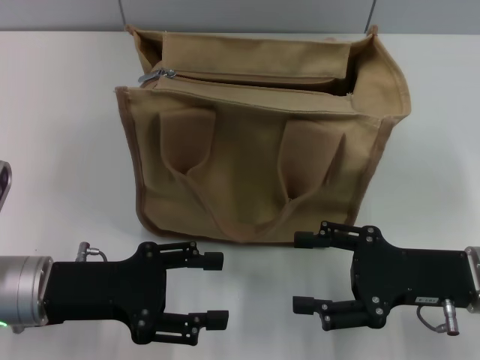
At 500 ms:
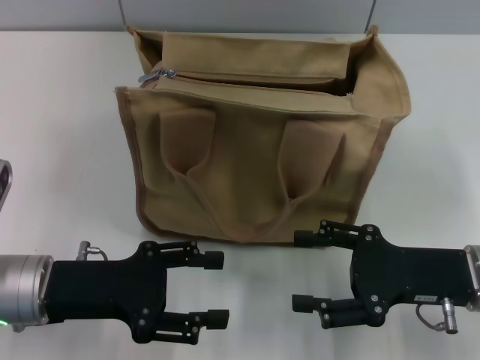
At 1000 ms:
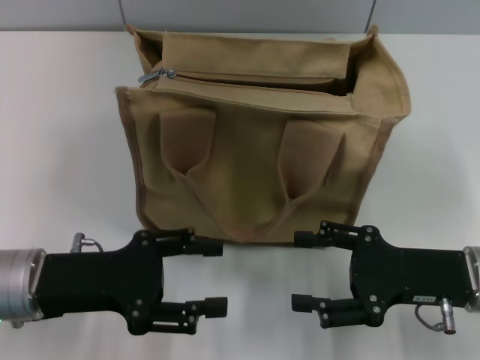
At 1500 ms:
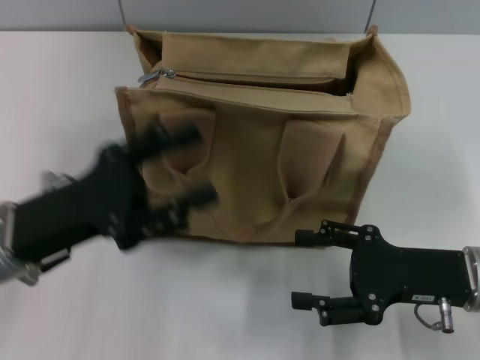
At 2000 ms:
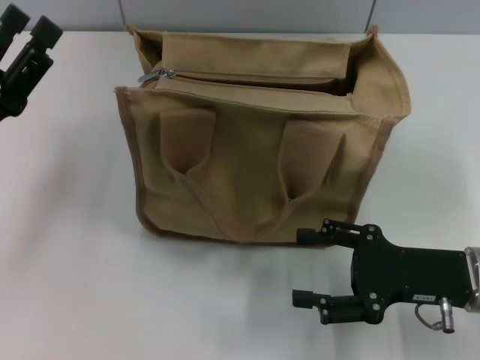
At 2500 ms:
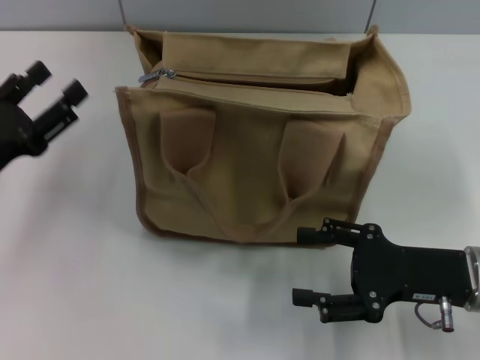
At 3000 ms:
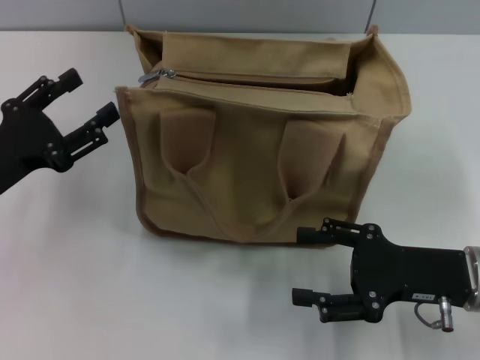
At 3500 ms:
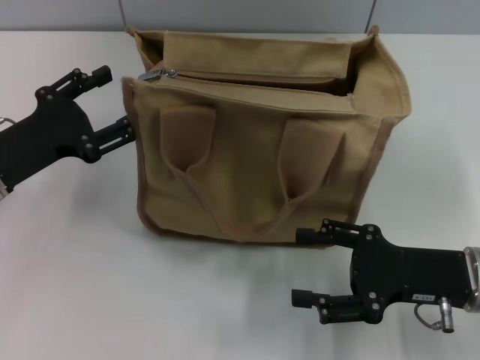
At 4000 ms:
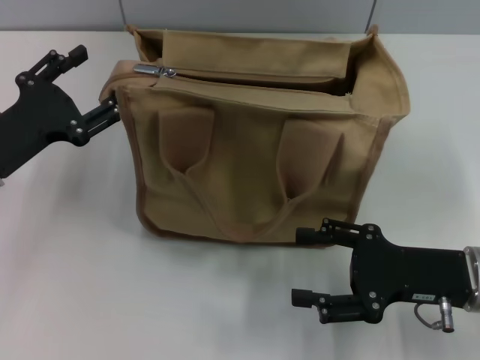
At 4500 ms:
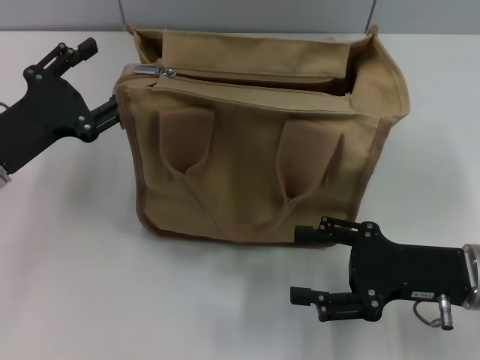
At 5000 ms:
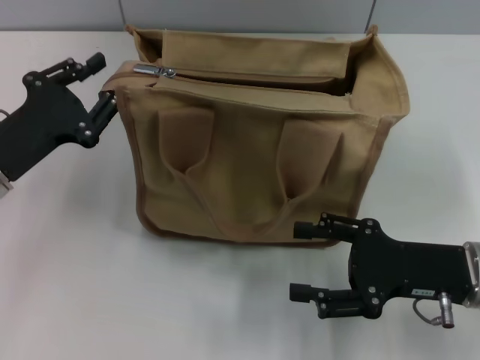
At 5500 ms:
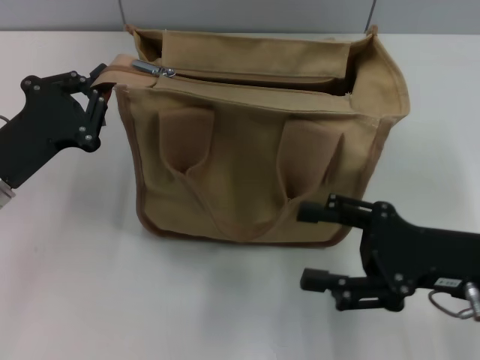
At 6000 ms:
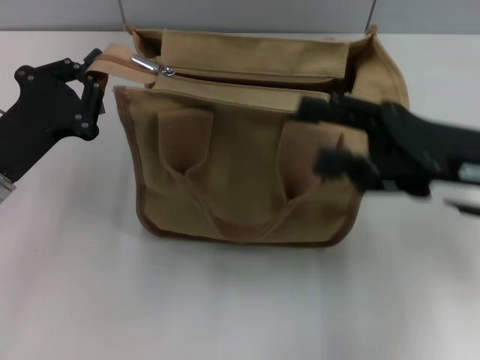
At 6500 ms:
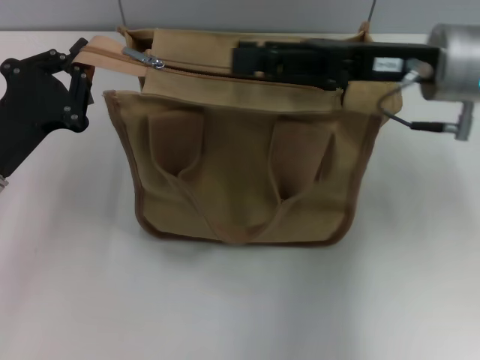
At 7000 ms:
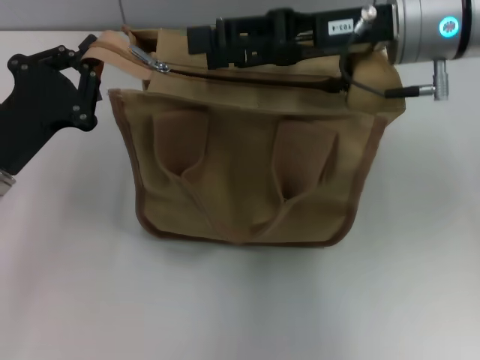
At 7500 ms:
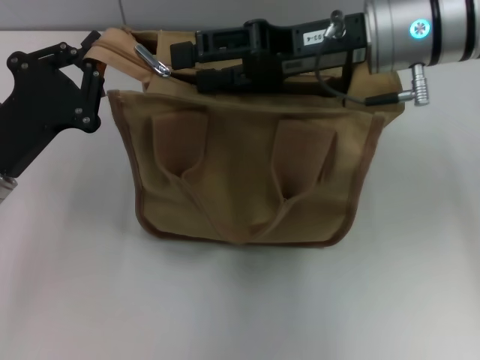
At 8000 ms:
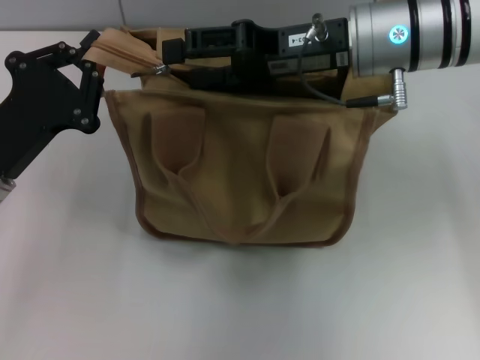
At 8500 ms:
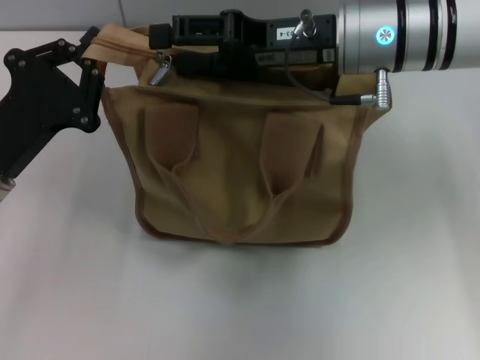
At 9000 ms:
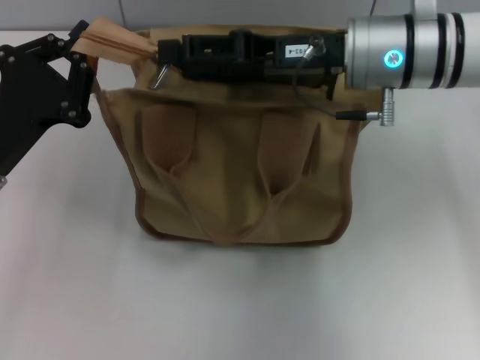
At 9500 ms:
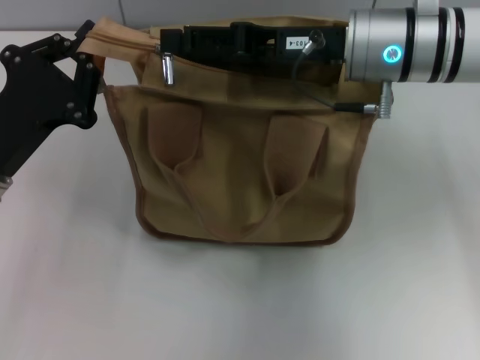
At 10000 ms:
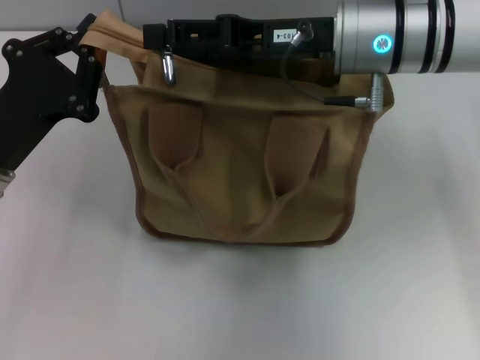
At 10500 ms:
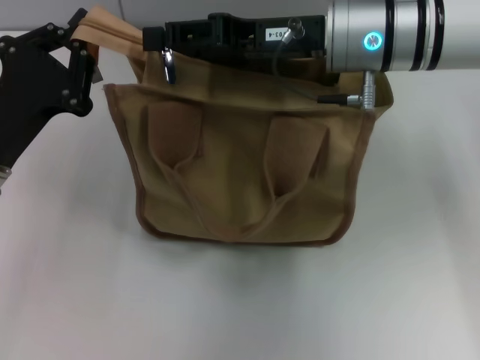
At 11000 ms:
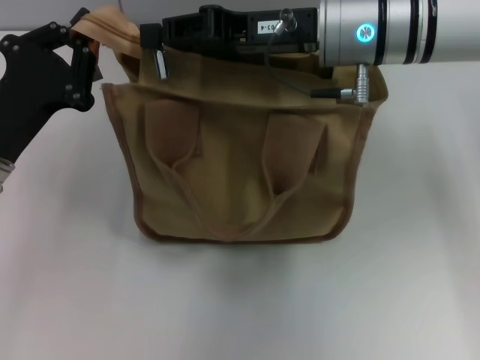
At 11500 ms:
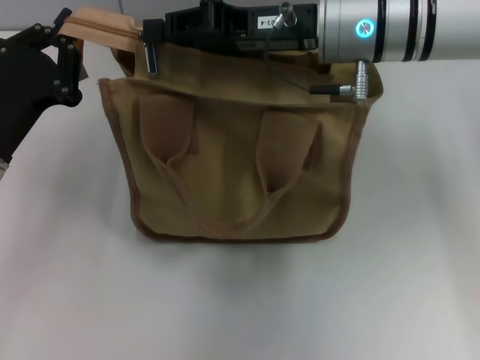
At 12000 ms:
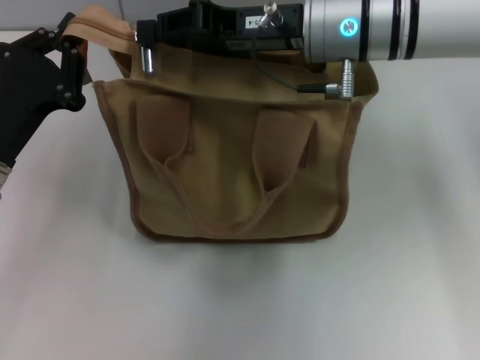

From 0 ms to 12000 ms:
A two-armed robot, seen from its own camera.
From 0 ms to 2000 ms: The left gripper ends up about 5 cm from where it was.
From 4000 ms to 6000 ms: The left gripper closes its fingers. Meanwhile the right gripper heads upward, covering about 10 cm.
From 6000 ms to 8000 ms: The right gripper heads forward and to the left, covering roughly 15 cm.
From 8000 ms to 10000 ms: The grippers make only small movements.
From 10000 ms to 12000 ms: The right gripper closes up.

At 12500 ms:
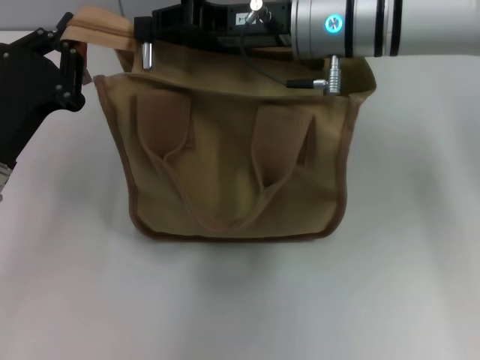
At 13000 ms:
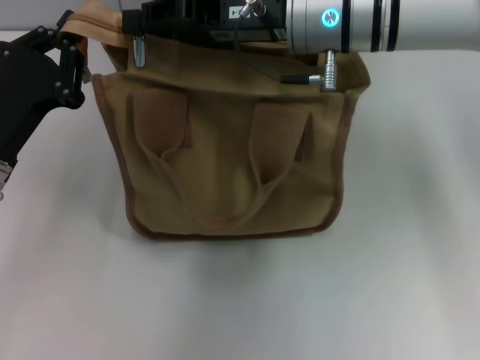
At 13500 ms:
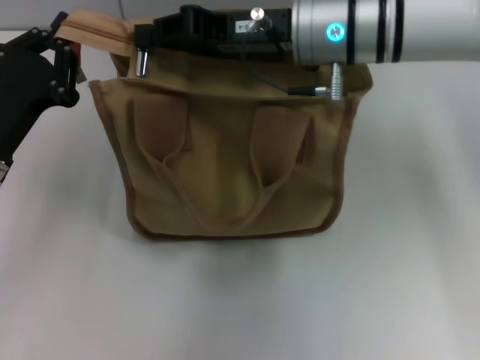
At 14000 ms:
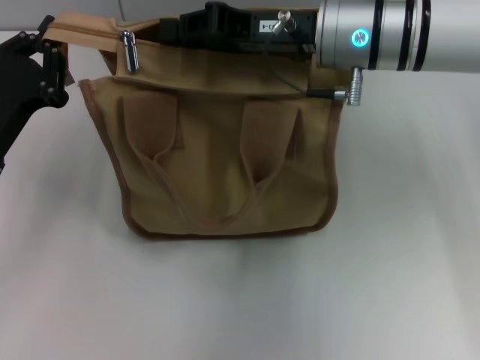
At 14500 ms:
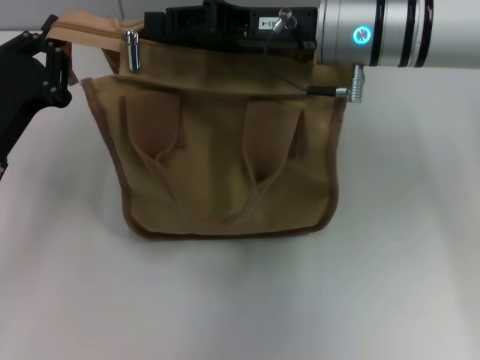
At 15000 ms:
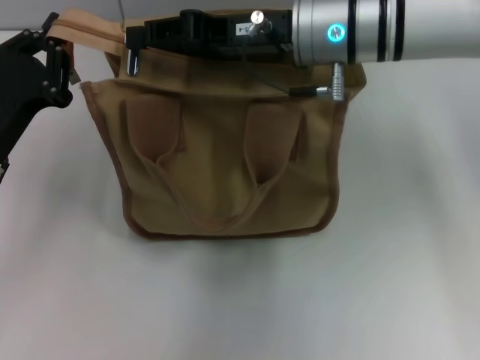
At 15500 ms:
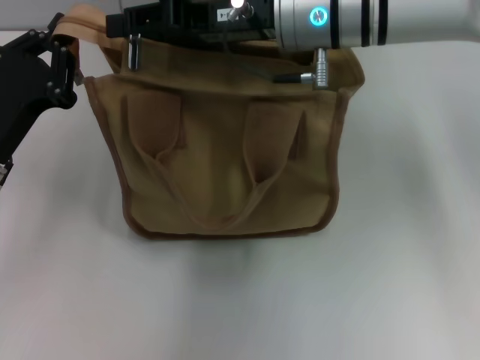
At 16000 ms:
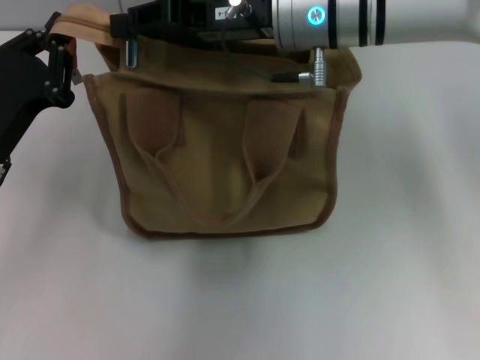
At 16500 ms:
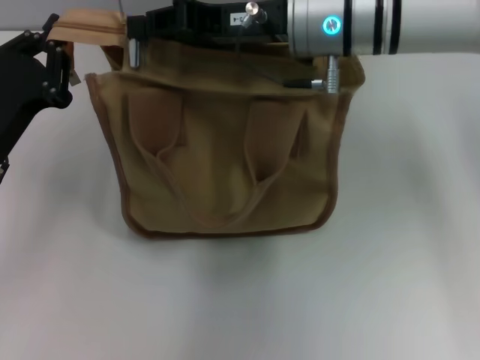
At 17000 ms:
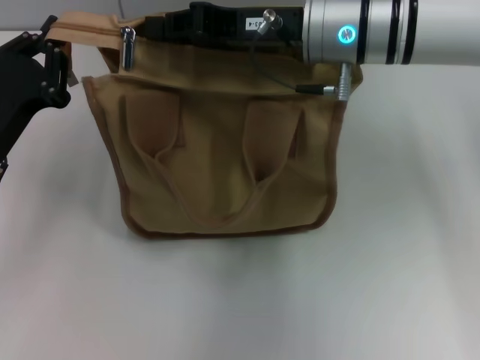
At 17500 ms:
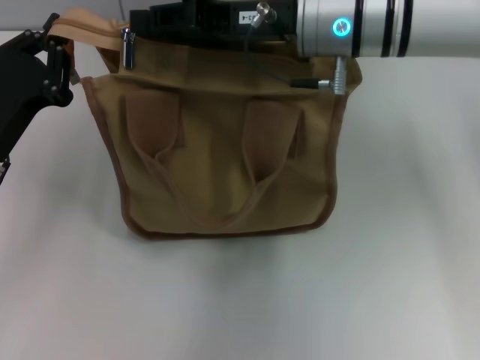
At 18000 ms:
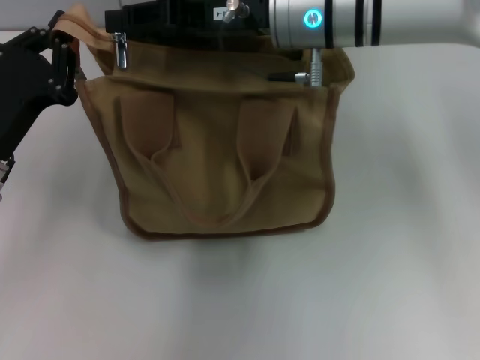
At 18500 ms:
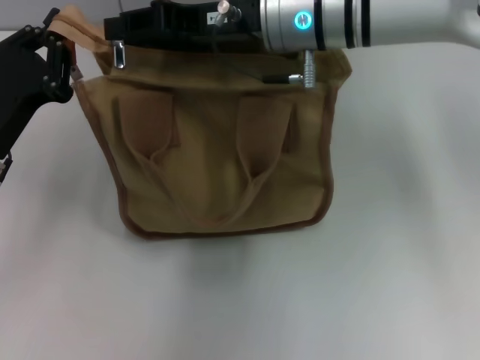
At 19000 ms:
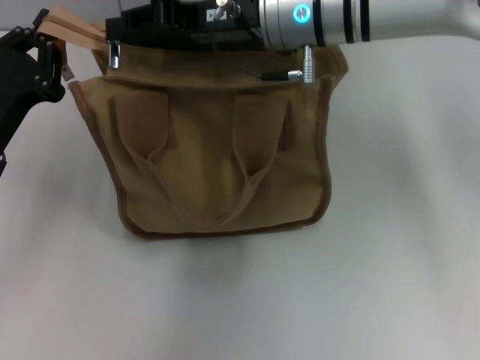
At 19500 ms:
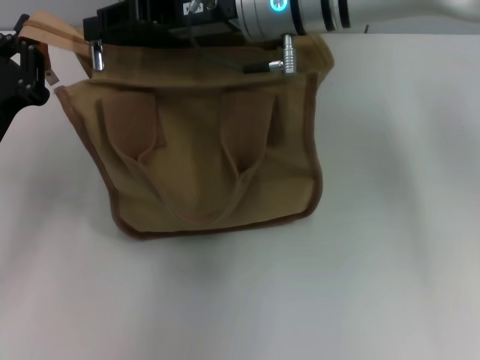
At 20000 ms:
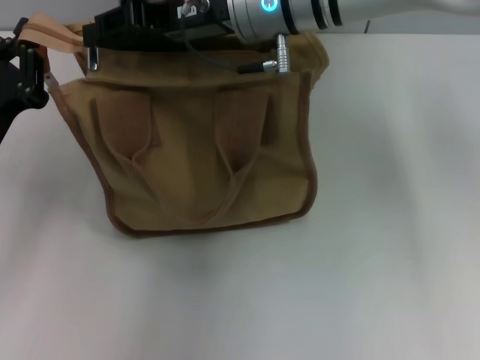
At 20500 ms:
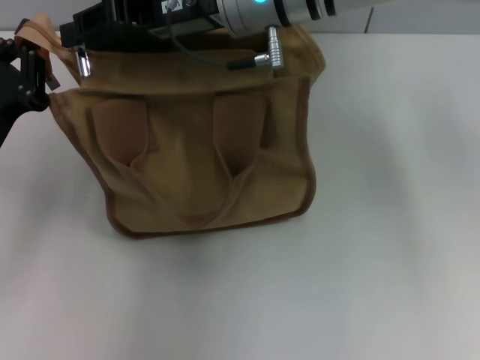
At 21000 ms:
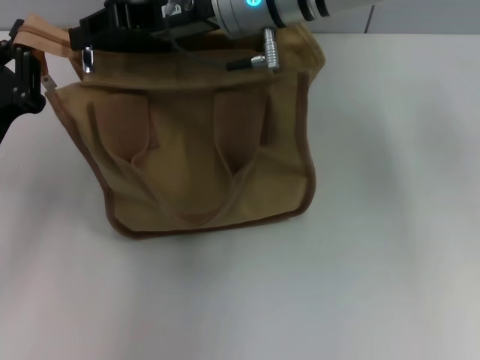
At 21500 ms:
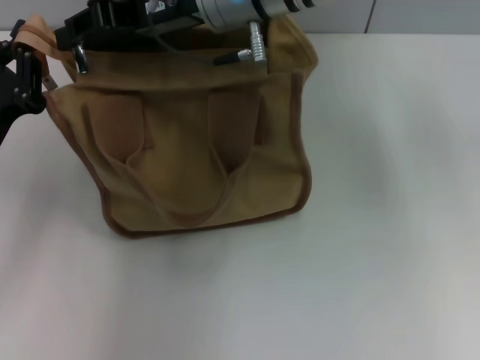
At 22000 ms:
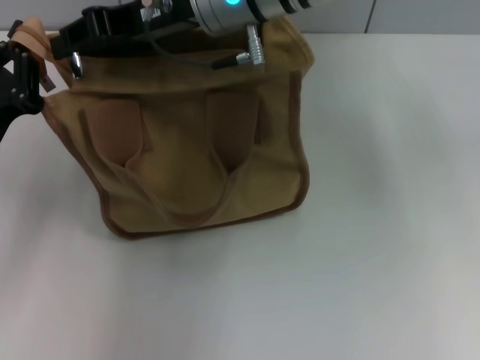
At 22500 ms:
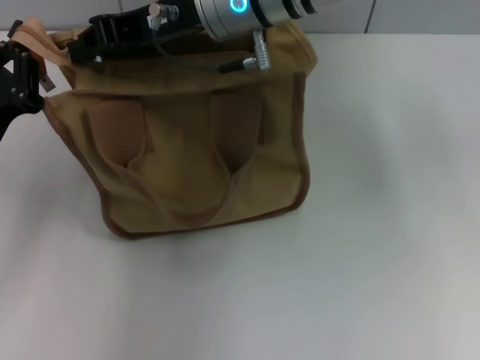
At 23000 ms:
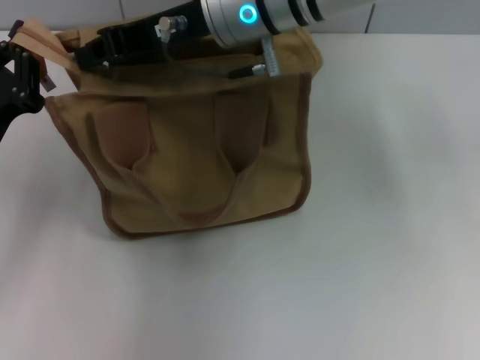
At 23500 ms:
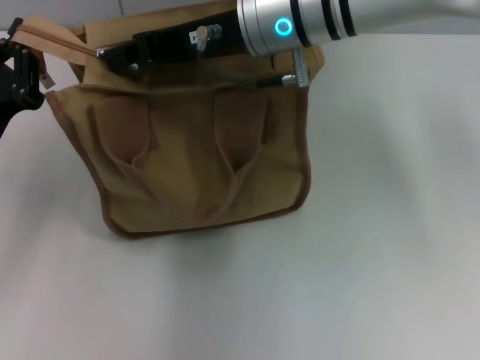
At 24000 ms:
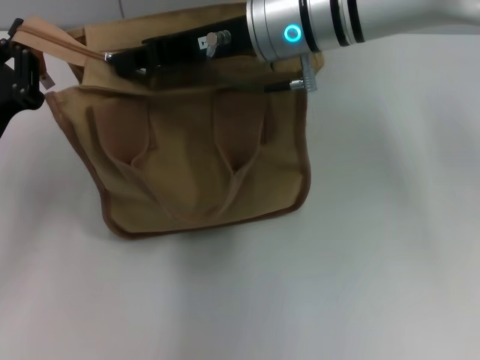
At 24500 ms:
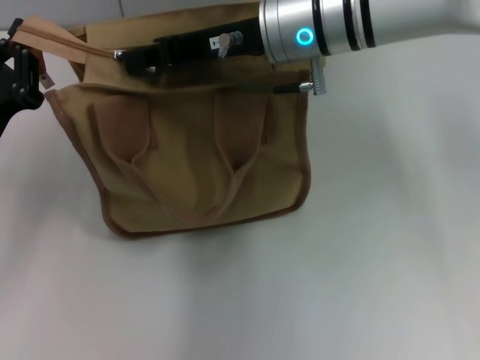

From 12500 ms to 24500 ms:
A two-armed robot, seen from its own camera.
From 12500 ms to 18500 ms: The grippers make only small movements.
From 18500 ms to 20500 ms: The grippers make only small movements.
From 20500 ms to 22500 ms: There are only small adjustments of the grippers.
From 22500 ms to 24500 ms: The right gripper moves to the right, about 5 cm.

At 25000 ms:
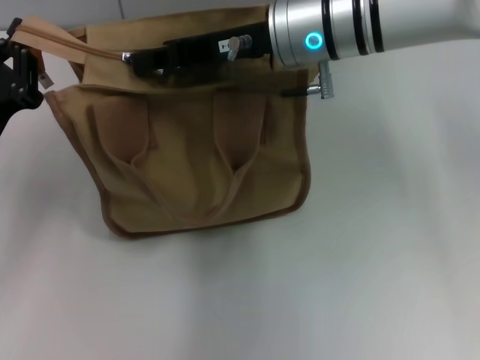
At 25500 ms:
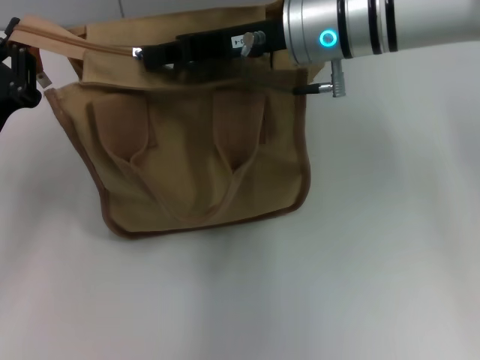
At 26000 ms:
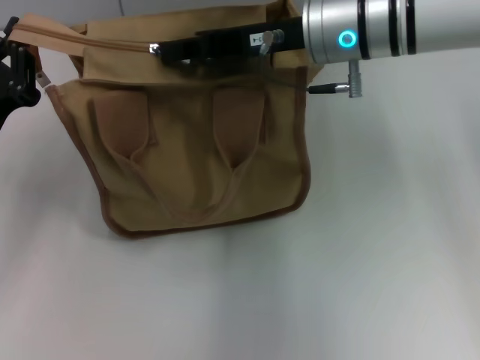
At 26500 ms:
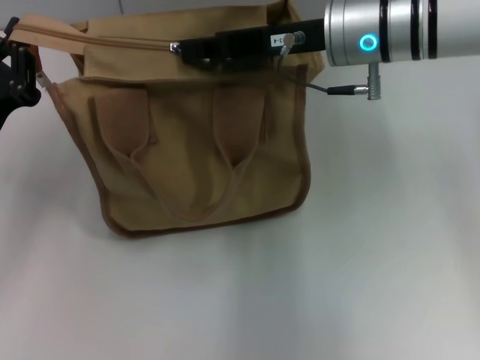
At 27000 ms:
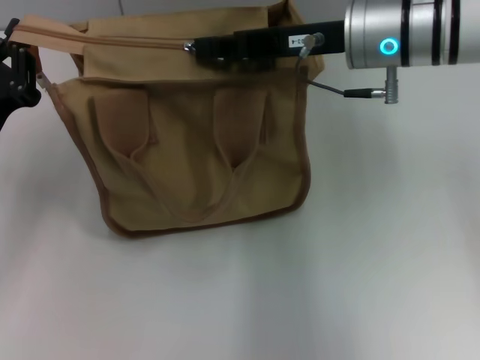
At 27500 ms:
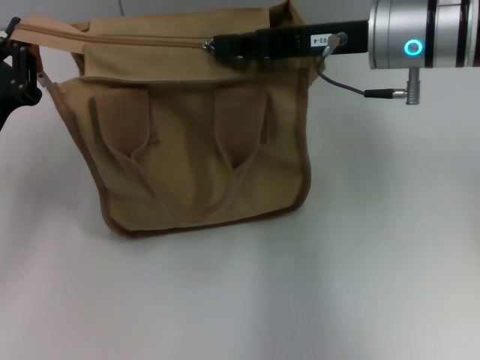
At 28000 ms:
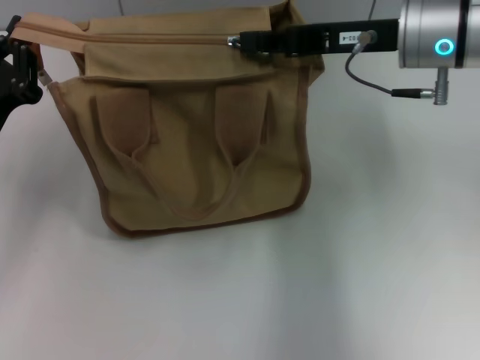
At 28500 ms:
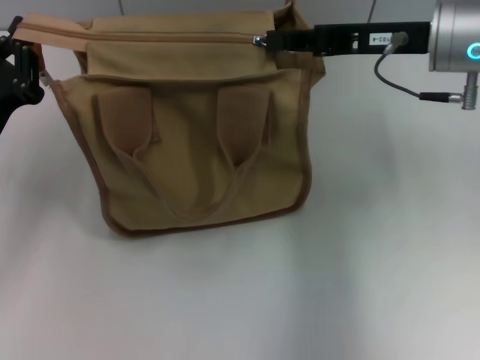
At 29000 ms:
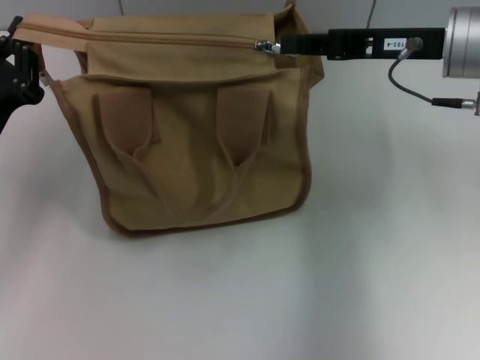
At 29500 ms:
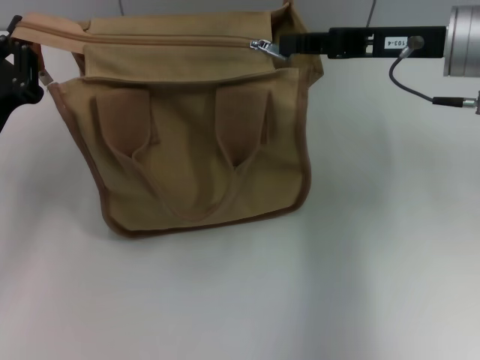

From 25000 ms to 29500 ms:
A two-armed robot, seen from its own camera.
From 25000 ms to 27000 ms: The right gripper travels to the right by about 5 cm.
From 27000 ms to 29500 ms: The right gripper is displaced to the right by some 10 cm.
